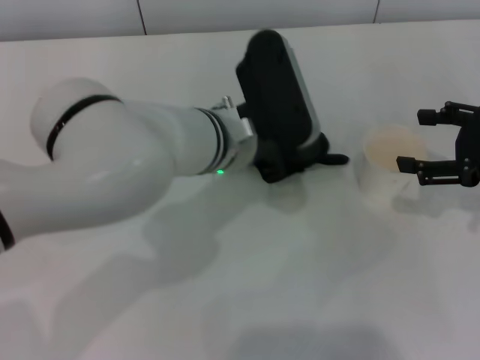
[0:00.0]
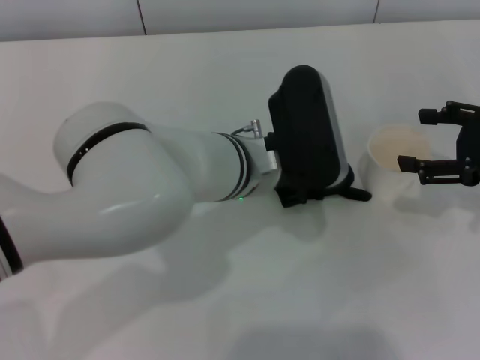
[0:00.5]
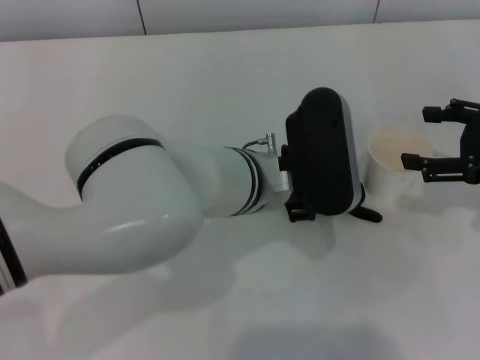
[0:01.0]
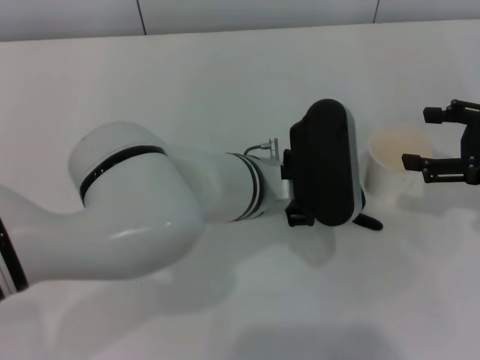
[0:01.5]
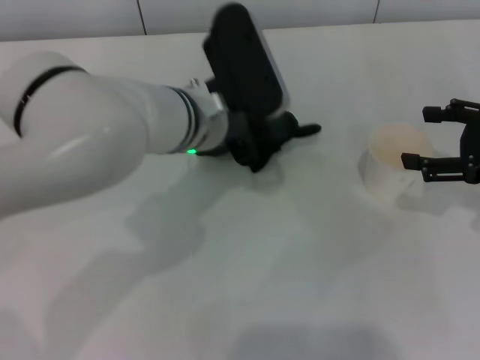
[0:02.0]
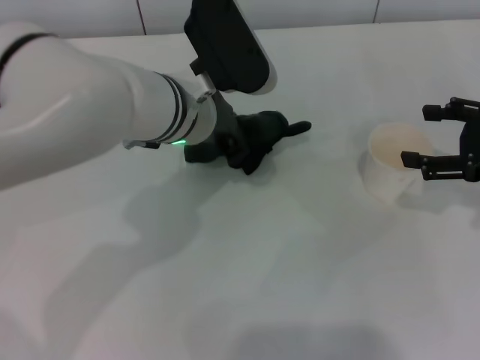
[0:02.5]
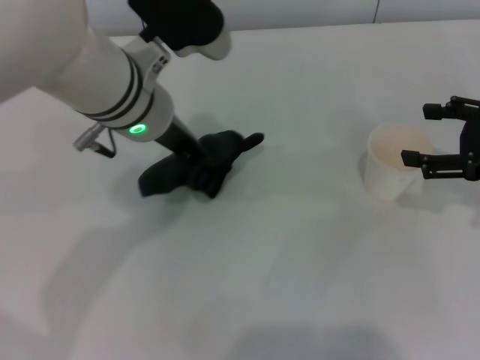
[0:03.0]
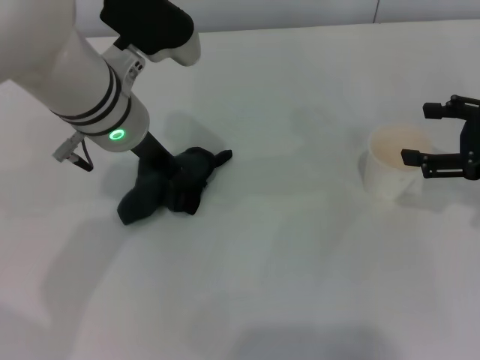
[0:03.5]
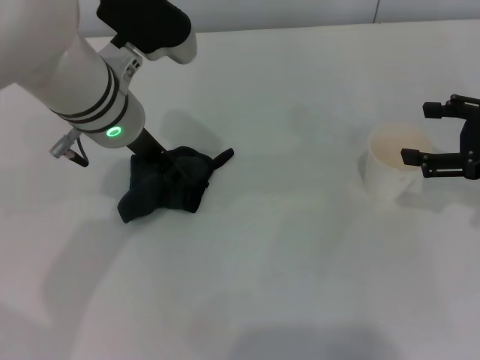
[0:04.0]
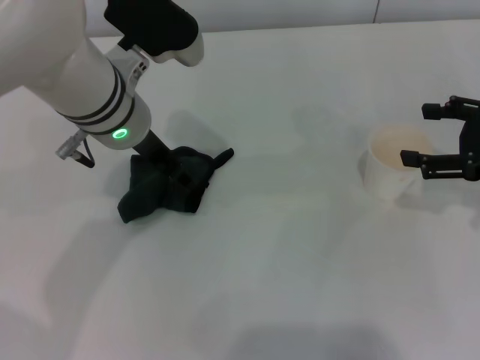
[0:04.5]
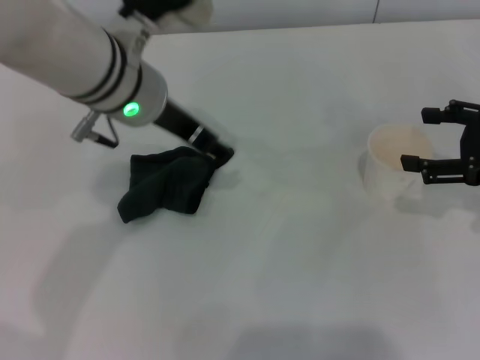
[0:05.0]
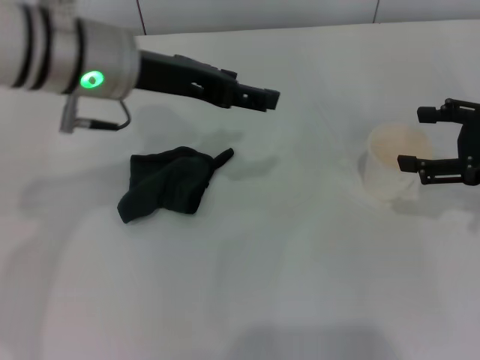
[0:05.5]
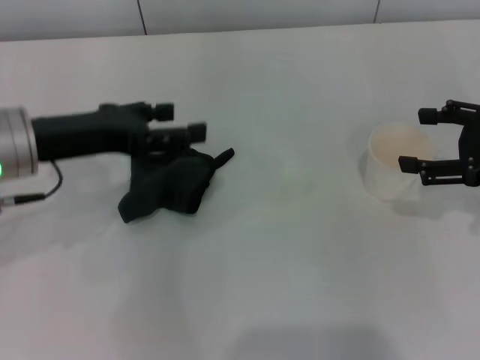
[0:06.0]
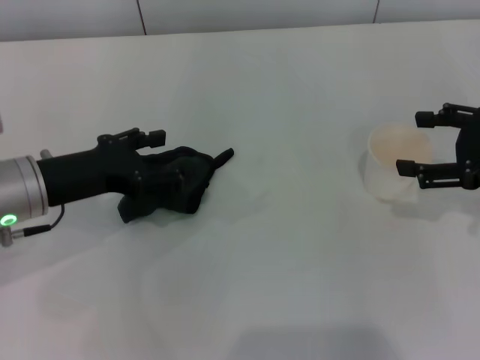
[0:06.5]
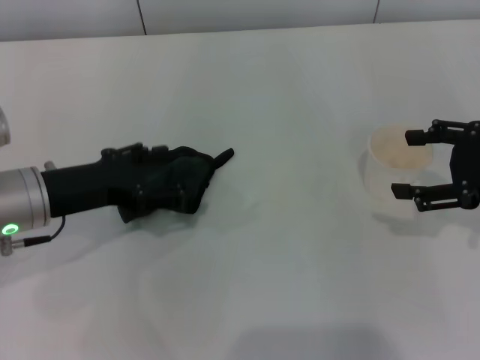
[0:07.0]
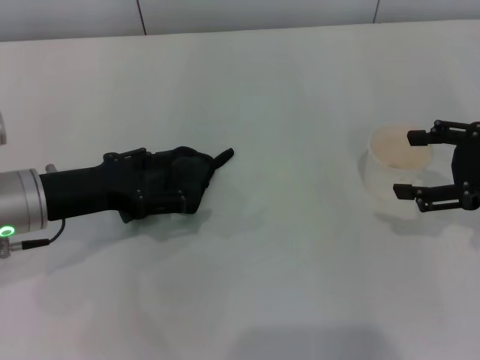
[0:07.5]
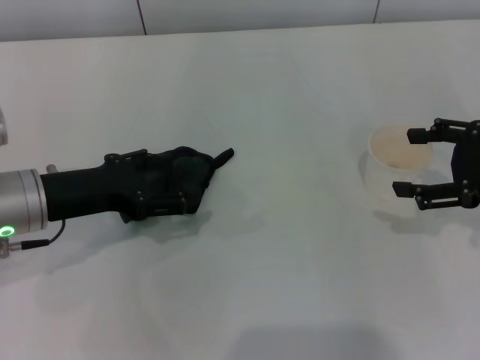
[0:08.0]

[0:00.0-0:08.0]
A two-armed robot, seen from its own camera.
Step, 0:00.0 to 0:03.0: Wipe the stains off the table with the left gripper.
Step, 0:03.5 to 0:04.5: Place the rag on the table with the left gripper.
0:00.0 to 0:02.0: There are only small adjustments of the grippers.
0:02.0 to 0:04.0: The left gripper heads to the left, covering approximately 5 cm, and opens.
0:04.0 to 0:06.0: The left gripper is displaced to the left and backward by roughly 10 cm, and opens up.
0:06.0 to 0:08.0: The left gripper goes some 5 cm downward.

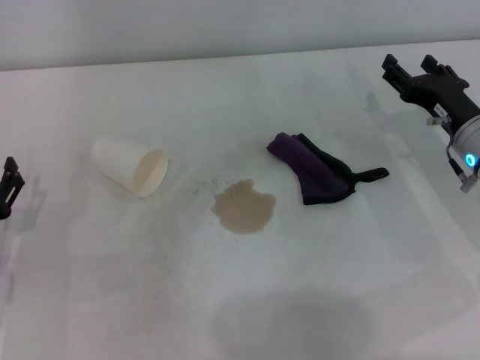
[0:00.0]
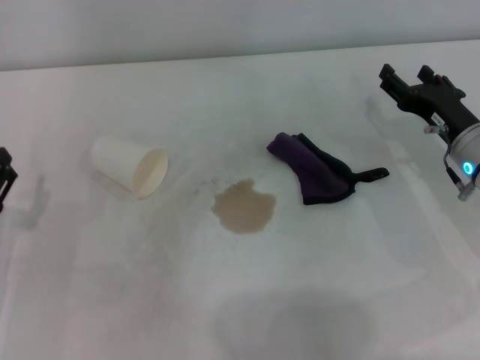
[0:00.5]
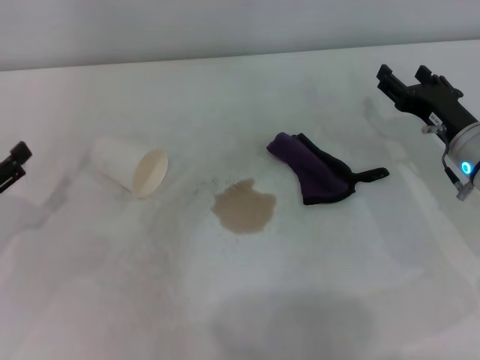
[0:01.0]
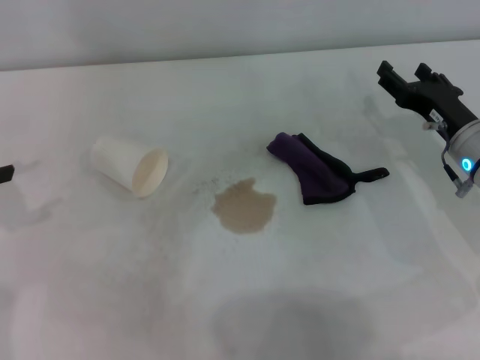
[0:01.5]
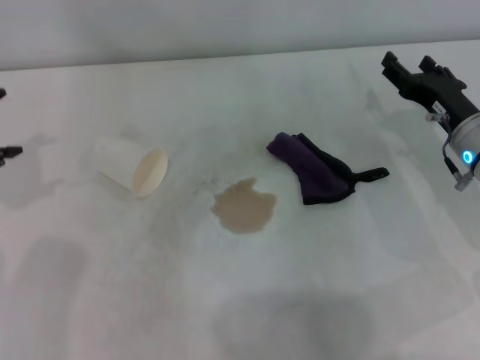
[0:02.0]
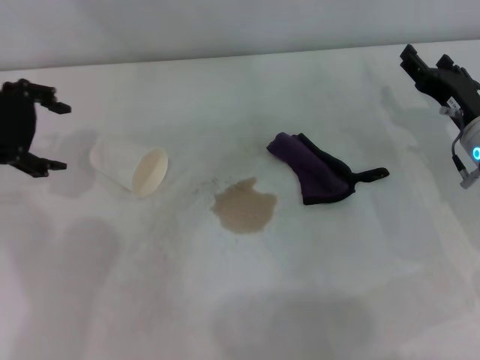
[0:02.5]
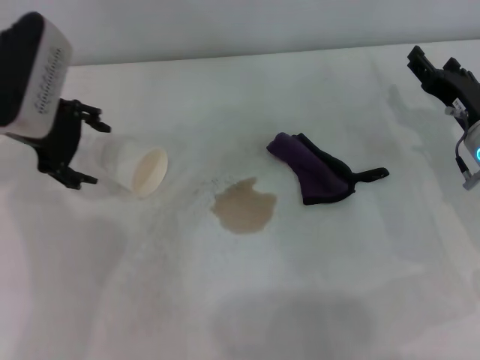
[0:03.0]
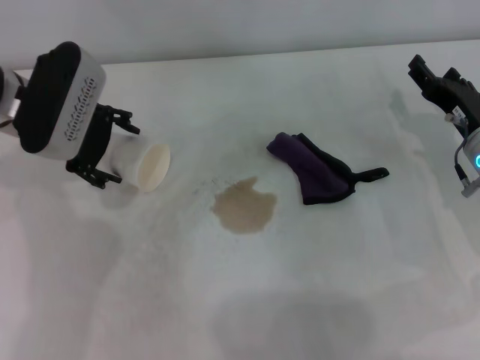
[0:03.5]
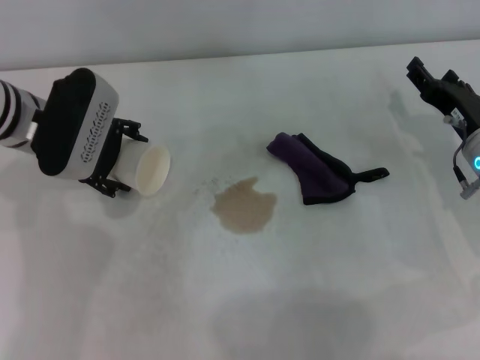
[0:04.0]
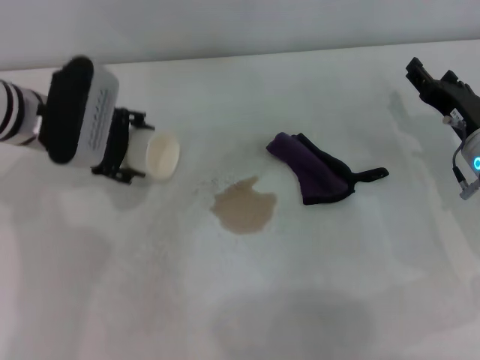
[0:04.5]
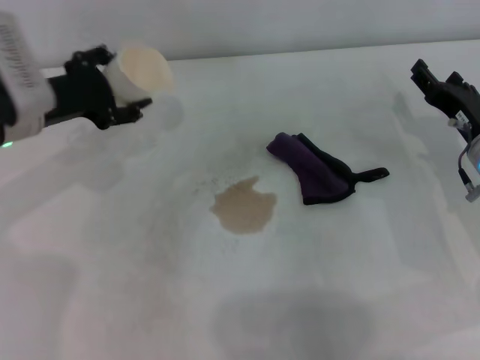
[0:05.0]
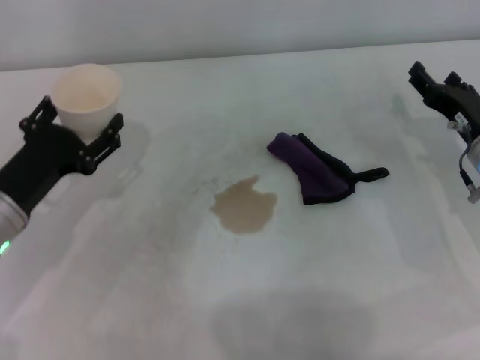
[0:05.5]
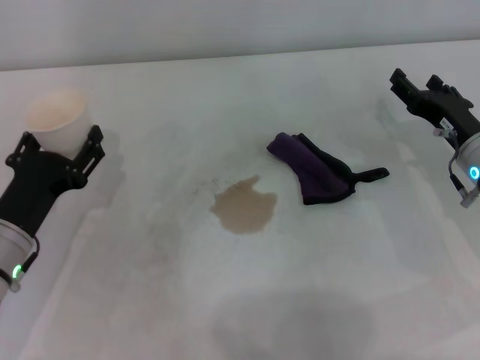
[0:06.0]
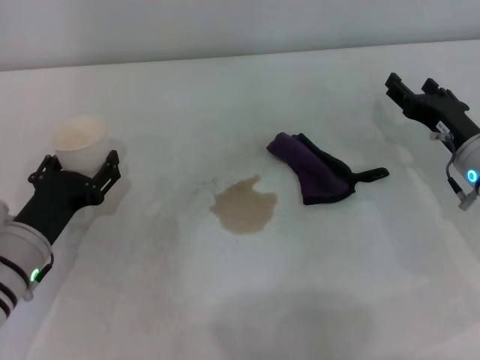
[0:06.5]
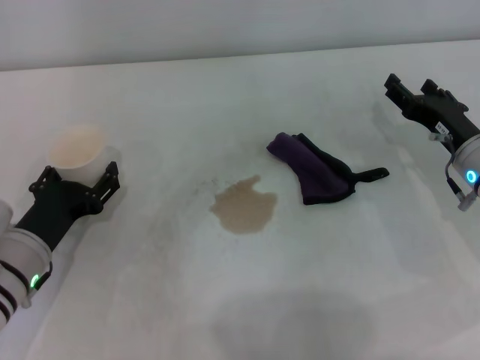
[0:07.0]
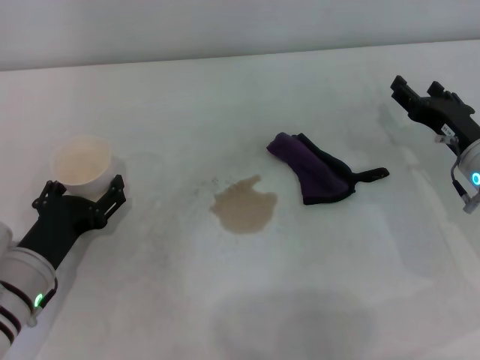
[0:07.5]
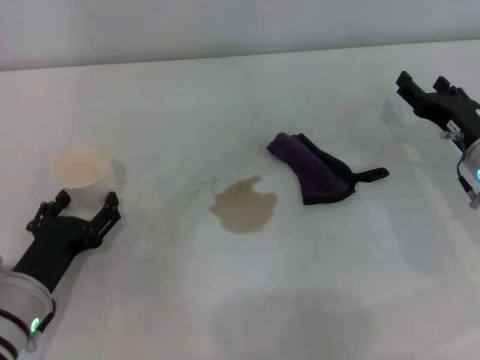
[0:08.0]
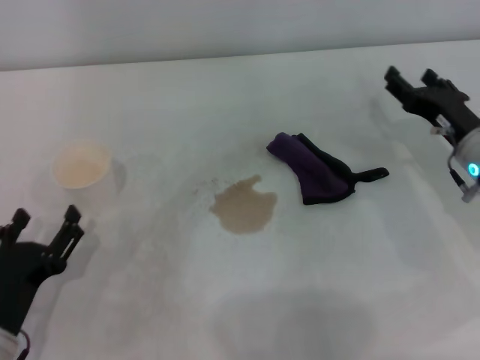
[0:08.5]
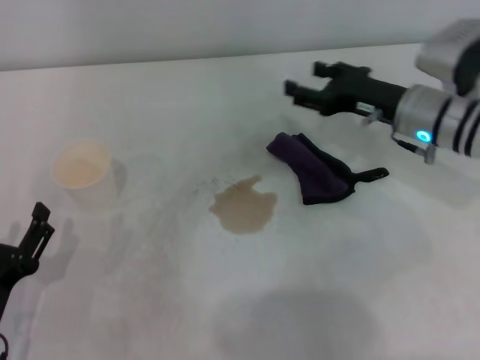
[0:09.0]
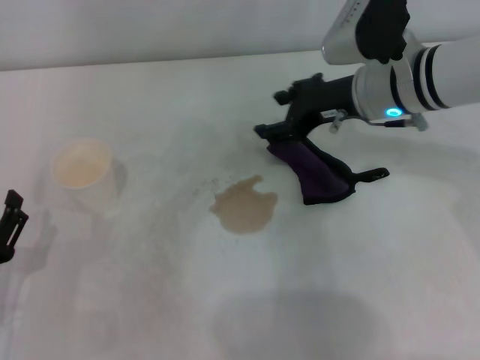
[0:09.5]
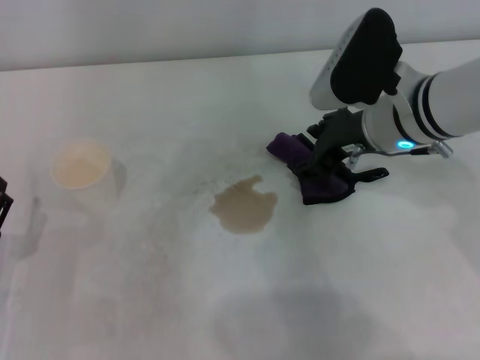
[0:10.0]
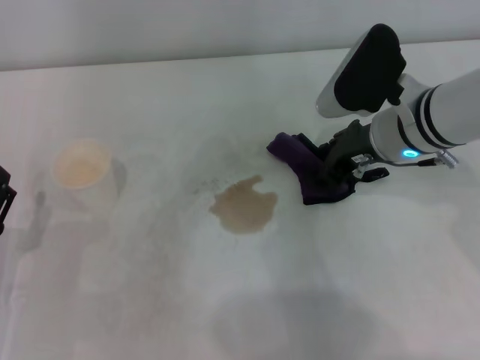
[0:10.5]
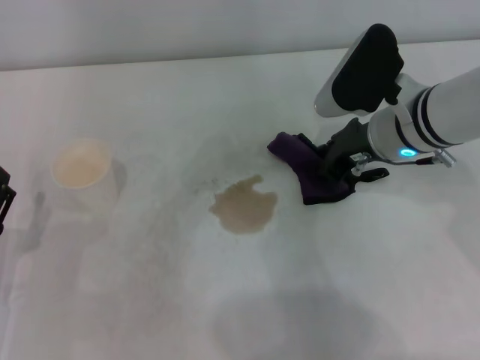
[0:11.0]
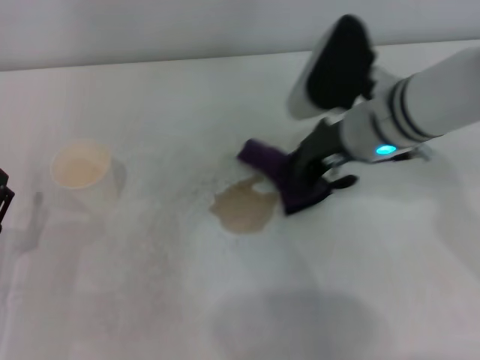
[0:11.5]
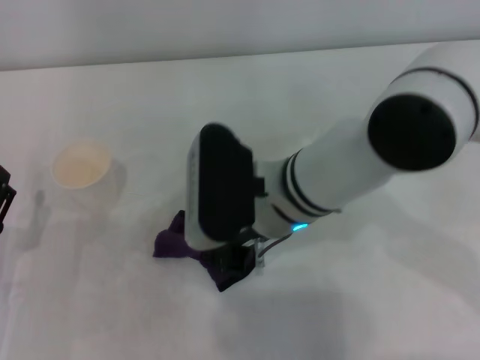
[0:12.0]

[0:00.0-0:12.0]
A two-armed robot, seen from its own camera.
Step, 0:00.0 to 0:04.0: Grasp the paper cup with the left gripper.
Step, 0:04.5 to 0:07.5: Stand the paper cup upright with the left gripper.
Step, 0:08.0 to 0:11.0: Grasp the rag with the right gripper.
0:00.0 to 0:02.0: The left gripper travels upward and forward by approximately 25 cm.
0:02.0 to 0:04.0: The left gripper moves to the right, downward and forward, approximately 15 cm.
0:04.0 to 0:06.0: The left gripper travels backward and downward by about 15 cm.
0:06.0 to 0:08.0: The left gripper moves roughly 5 cm.
0:08.0 to 0:10.0: The left gripper moves to the left, some 5 cm, while the right gripper is displaced to the left and upward by about 15 cm.
0:10.0 to 0:12.0: The right gripper shifts approximately 15 cm to the left and backward, and closes up.

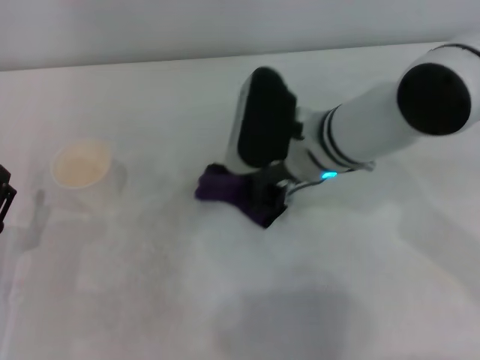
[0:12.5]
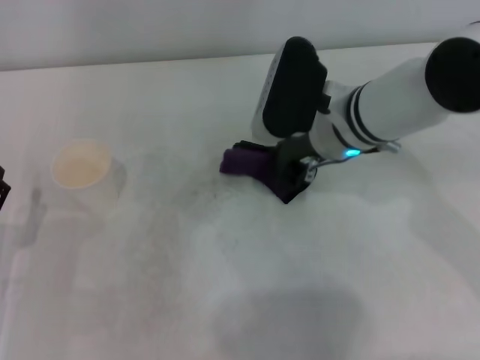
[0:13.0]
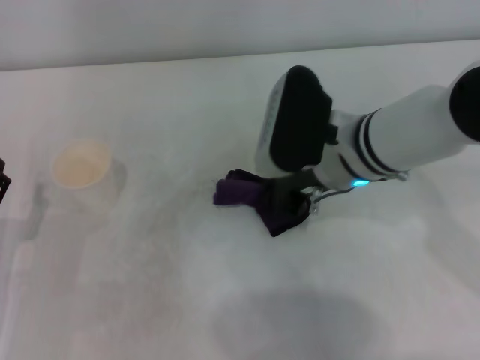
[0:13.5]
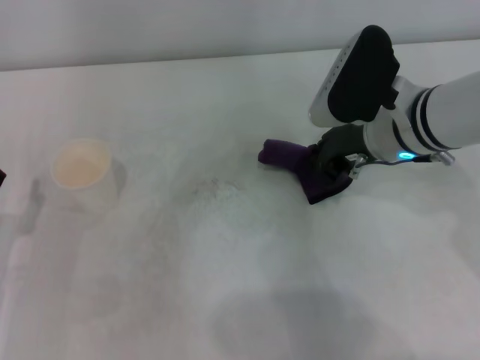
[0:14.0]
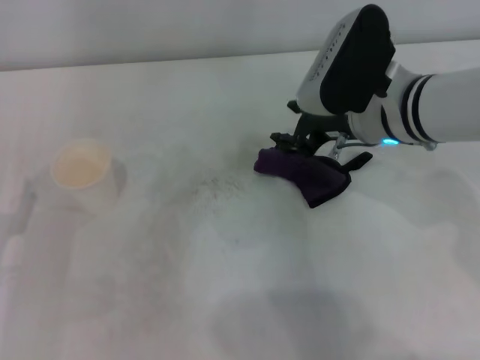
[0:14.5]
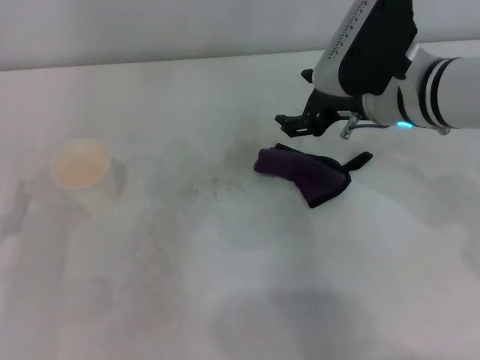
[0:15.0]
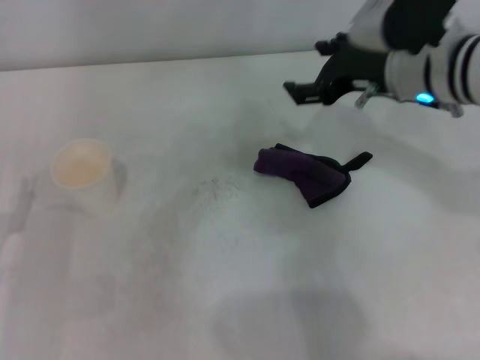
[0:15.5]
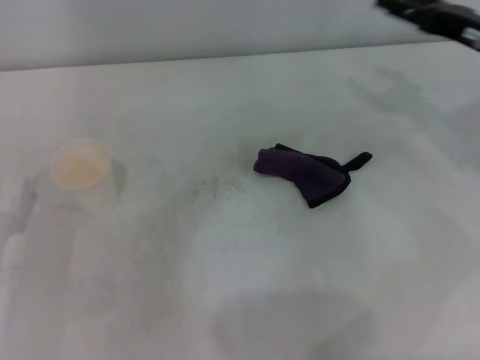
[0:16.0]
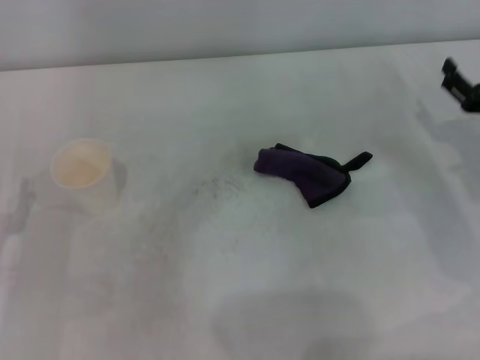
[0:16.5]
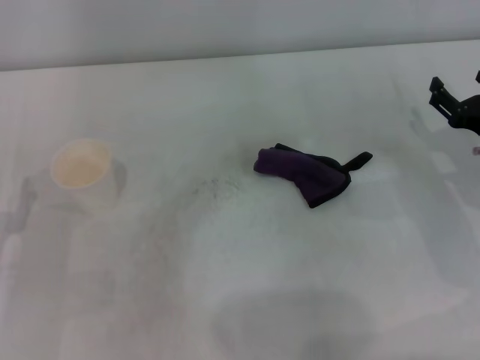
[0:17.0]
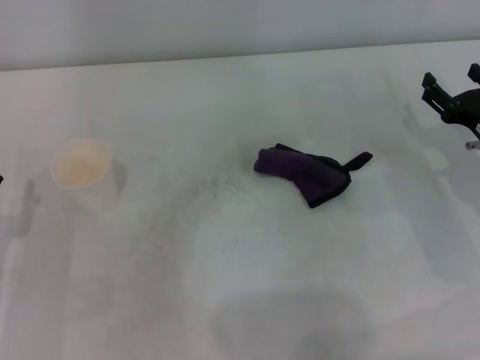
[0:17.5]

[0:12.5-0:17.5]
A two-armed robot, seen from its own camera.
0:12.5 to 0:15.0: The right gripper moves to the right, about 5 cm, and opens up.
0:15.0 to 0:17.5: The right gripper moves to the right and downward, approximately 20 cm.
